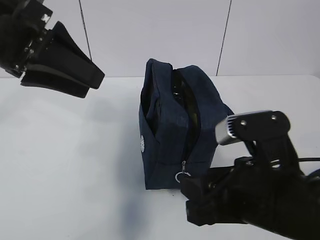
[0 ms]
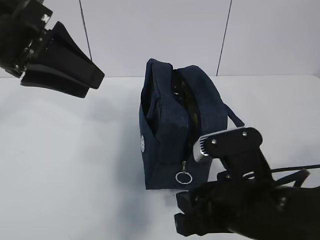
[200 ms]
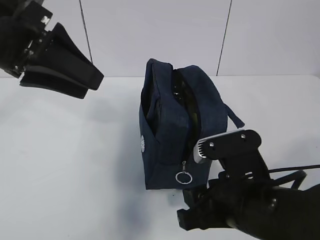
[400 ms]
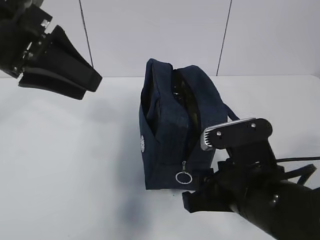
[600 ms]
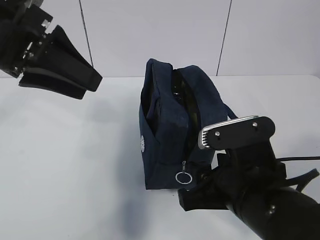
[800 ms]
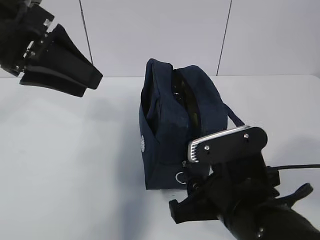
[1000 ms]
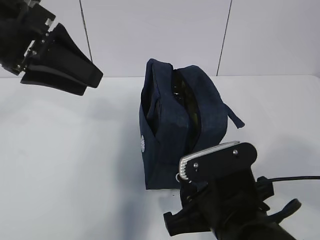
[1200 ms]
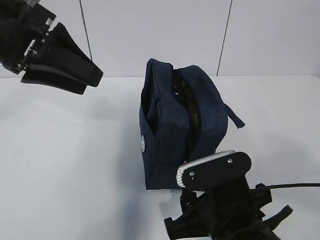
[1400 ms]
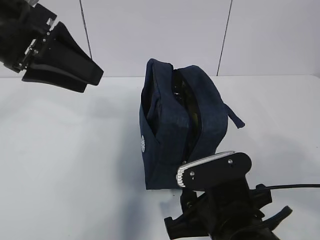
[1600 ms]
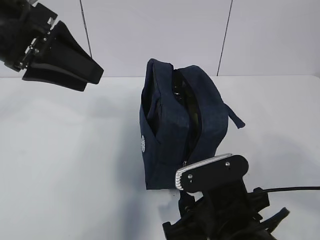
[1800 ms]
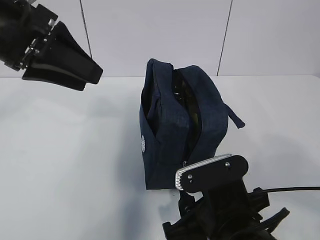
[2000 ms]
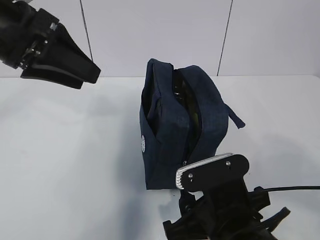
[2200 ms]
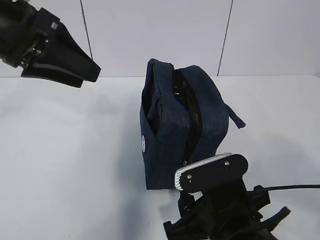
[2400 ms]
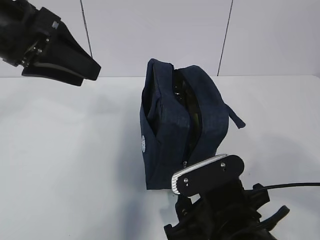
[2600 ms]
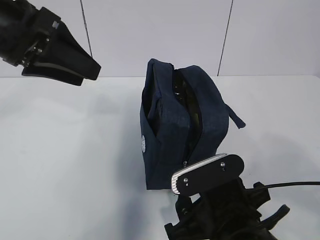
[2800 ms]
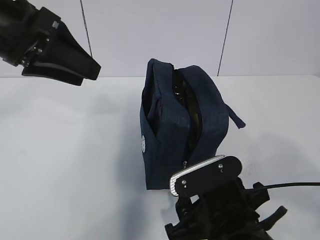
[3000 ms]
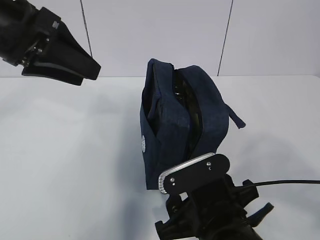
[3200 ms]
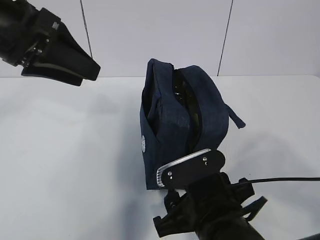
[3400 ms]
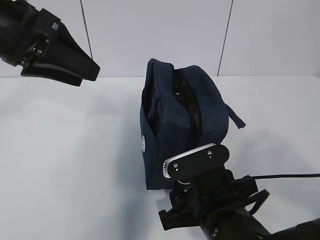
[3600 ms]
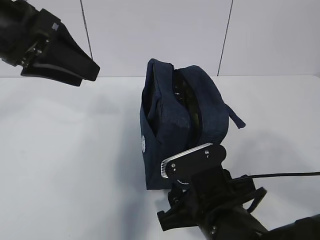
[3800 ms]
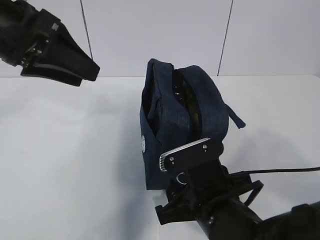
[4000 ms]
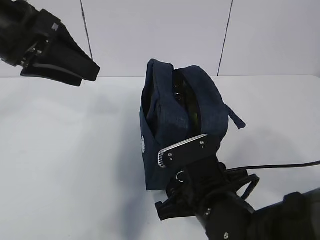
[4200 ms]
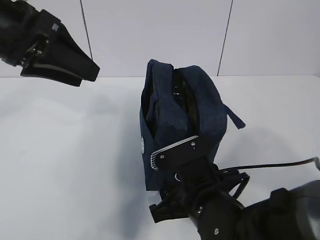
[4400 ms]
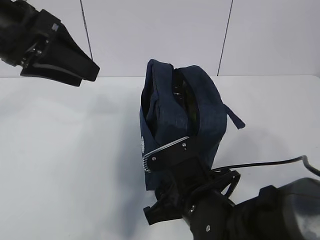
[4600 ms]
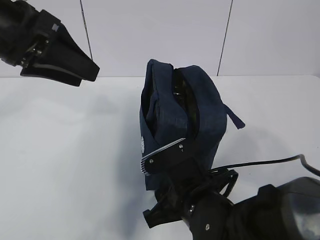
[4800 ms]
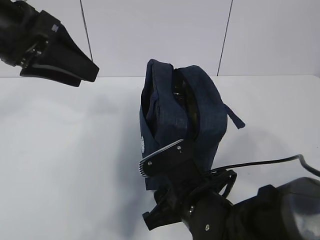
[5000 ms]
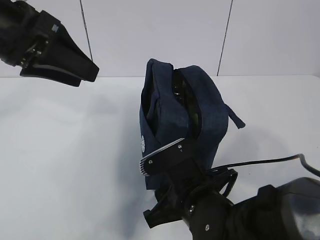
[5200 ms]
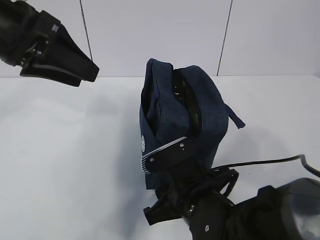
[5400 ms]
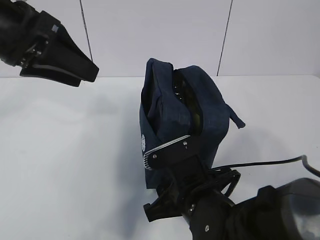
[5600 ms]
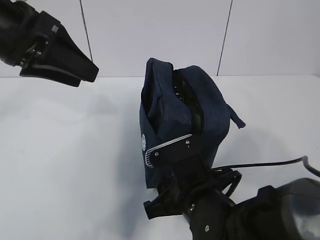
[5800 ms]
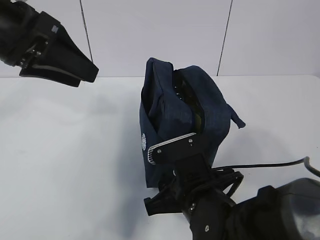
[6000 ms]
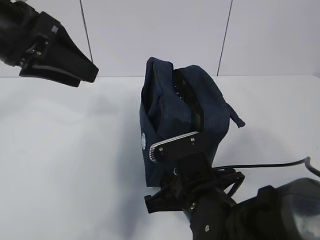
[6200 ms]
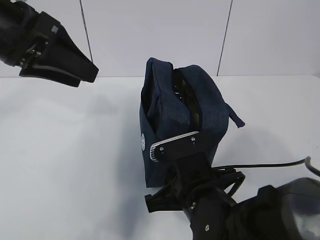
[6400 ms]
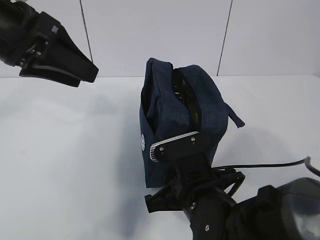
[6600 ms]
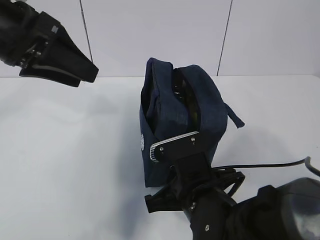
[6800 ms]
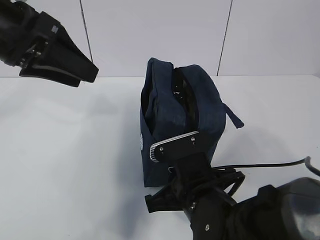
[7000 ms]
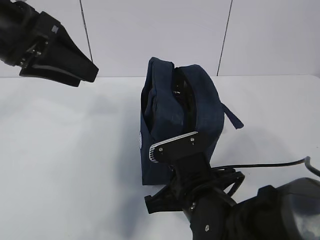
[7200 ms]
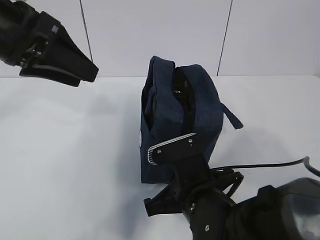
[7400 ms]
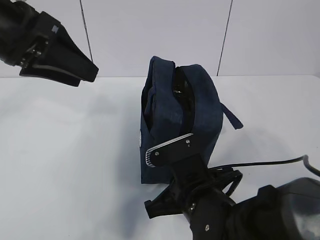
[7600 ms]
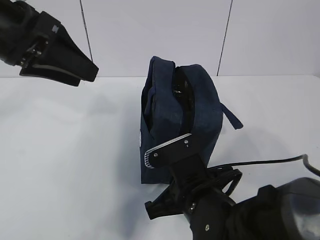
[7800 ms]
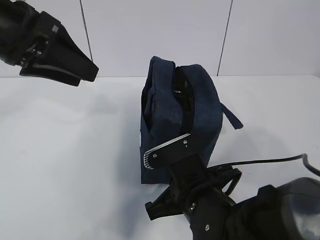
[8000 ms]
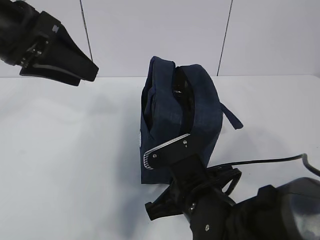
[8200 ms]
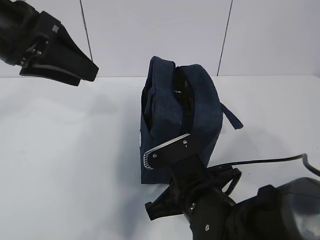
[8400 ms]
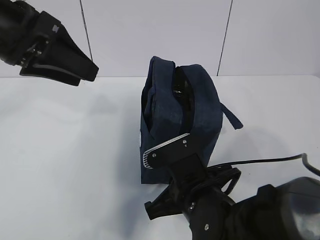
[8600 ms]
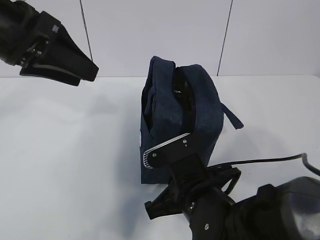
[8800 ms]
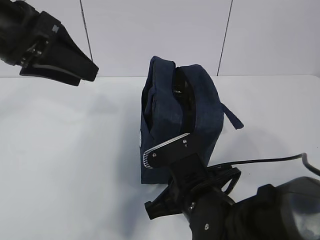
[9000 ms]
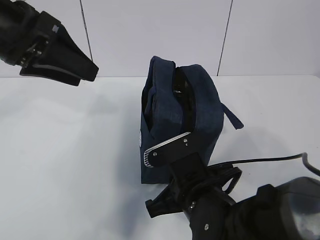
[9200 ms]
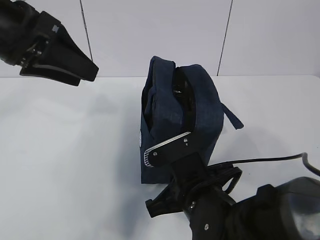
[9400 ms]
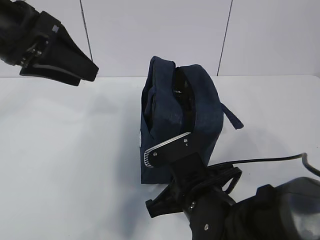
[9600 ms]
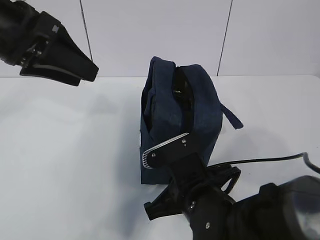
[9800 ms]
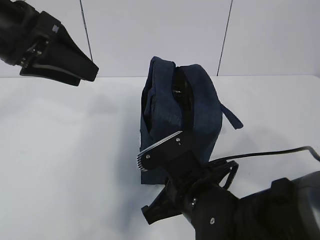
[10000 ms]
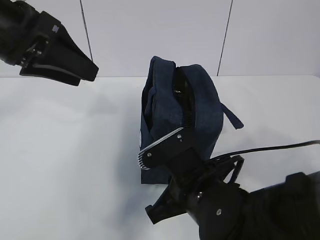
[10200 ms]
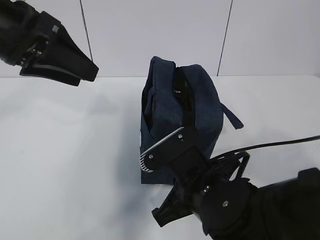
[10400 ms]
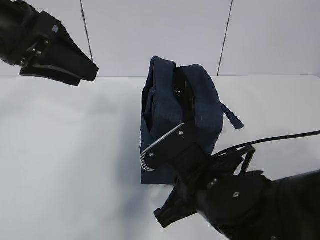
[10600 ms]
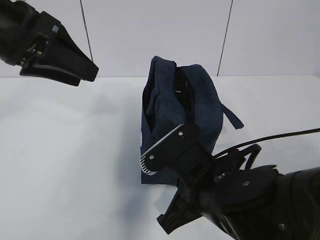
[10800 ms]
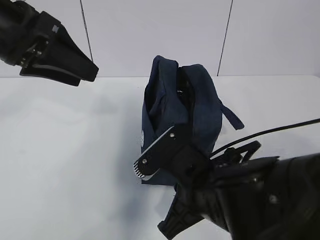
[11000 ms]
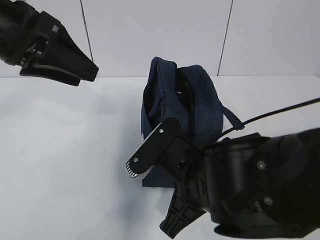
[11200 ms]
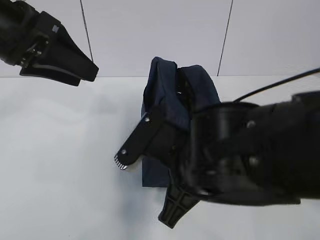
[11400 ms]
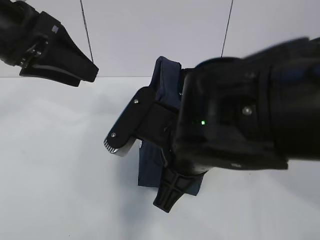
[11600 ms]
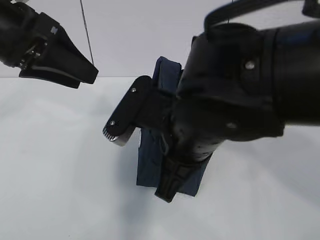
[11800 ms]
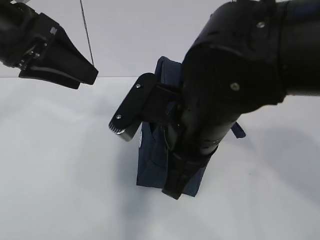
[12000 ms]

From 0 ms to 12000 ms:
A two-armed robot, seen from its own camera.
From 0 ms to 1600 ms: The right gripper travels downward by roughly 5 cm.
From 1600 ms to 3000 ms: The grippers move only a little.
From 3000 ms to 4400 ms: The right gripper shifts by some 5 cm.
From 4400 ms to 6000 ms: The grippers stay close to where they were, moving slightly.
From 6000 ms to 7600 ms: The right gripper closes.
From 7600 ms to 9000 ms: The two grippers keep their place.
From 9000 ms to 10400 ms: The grippers stay close to where they were, moving slightly.
From 10400 ms to 12000 ms: The right gripper moves upward, about 10 cm.

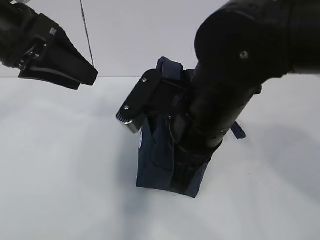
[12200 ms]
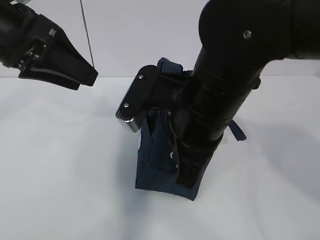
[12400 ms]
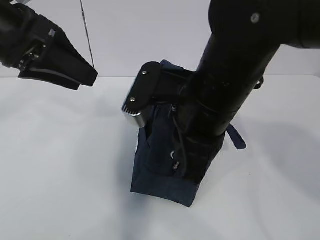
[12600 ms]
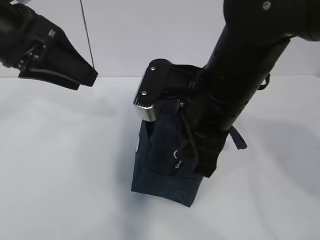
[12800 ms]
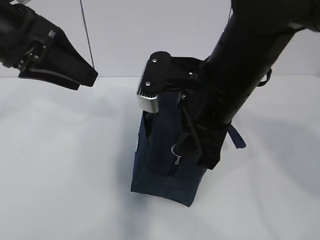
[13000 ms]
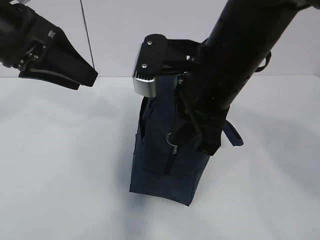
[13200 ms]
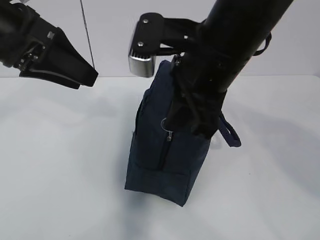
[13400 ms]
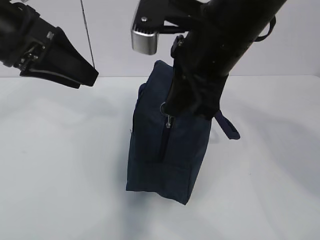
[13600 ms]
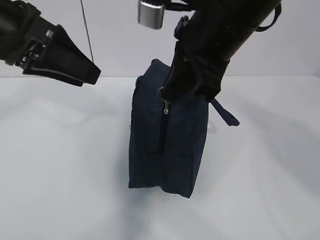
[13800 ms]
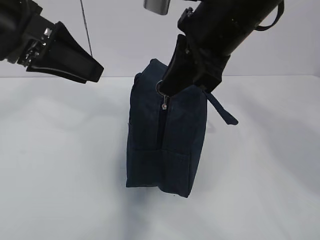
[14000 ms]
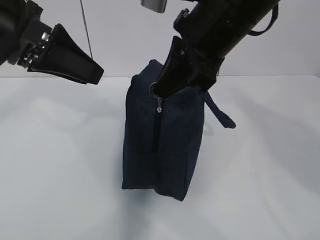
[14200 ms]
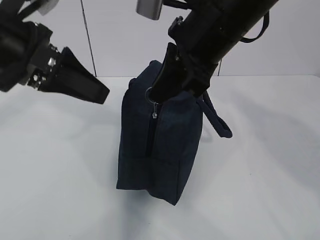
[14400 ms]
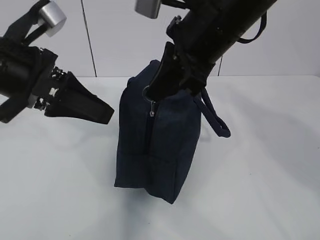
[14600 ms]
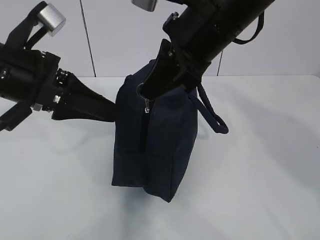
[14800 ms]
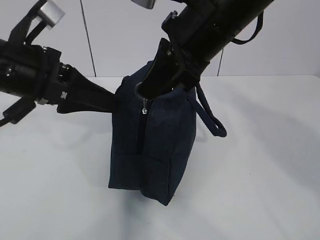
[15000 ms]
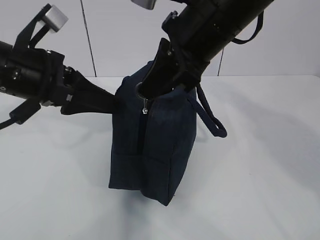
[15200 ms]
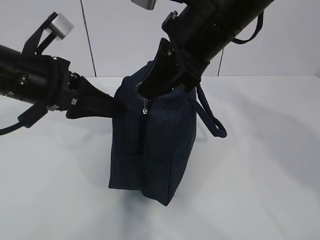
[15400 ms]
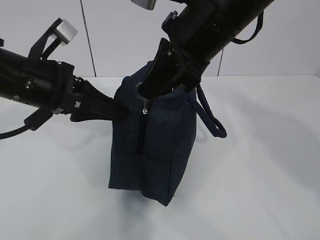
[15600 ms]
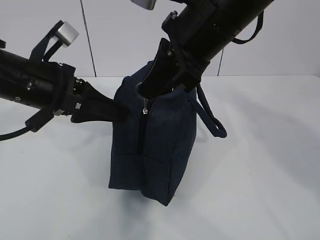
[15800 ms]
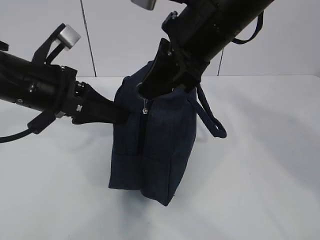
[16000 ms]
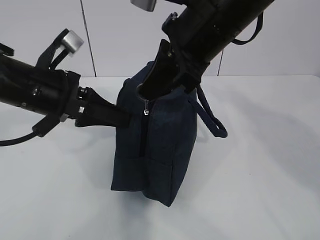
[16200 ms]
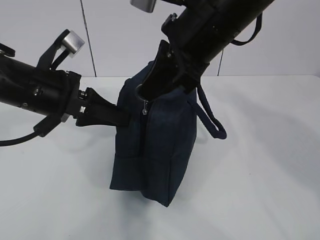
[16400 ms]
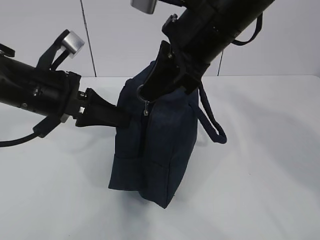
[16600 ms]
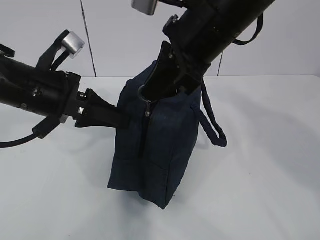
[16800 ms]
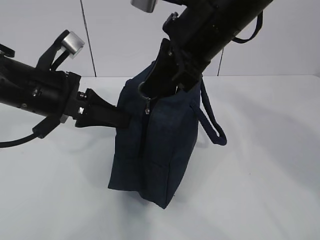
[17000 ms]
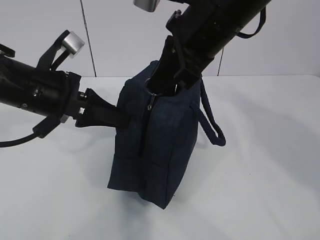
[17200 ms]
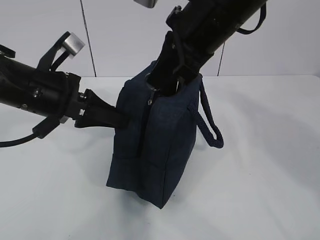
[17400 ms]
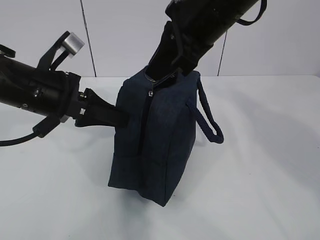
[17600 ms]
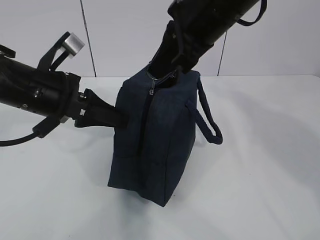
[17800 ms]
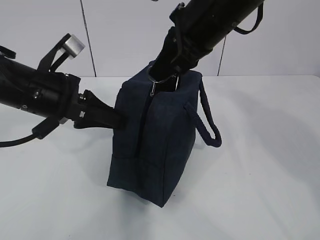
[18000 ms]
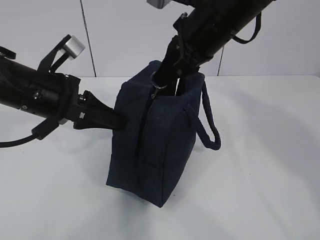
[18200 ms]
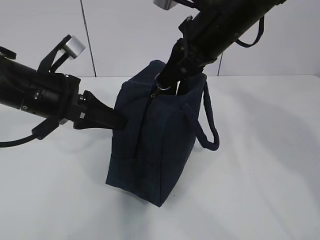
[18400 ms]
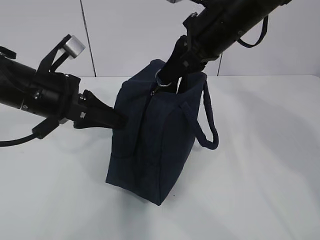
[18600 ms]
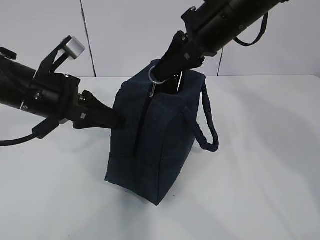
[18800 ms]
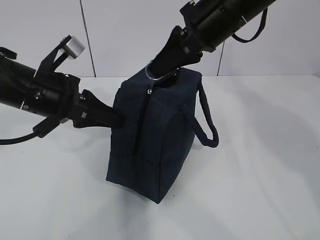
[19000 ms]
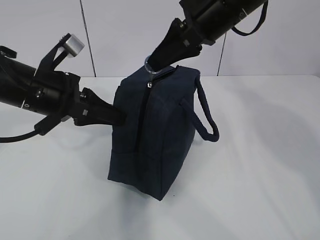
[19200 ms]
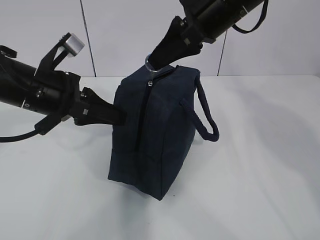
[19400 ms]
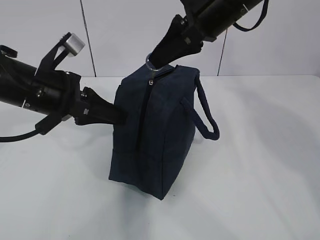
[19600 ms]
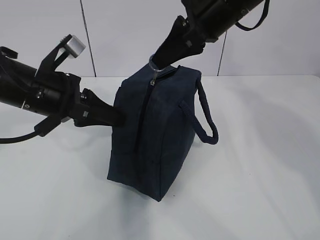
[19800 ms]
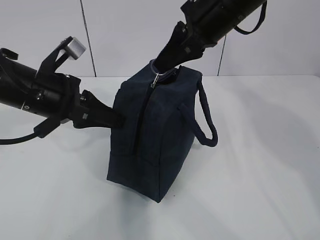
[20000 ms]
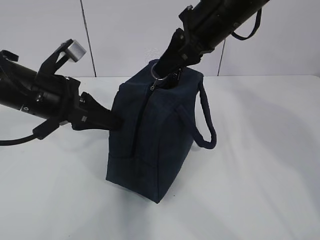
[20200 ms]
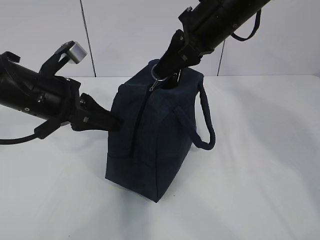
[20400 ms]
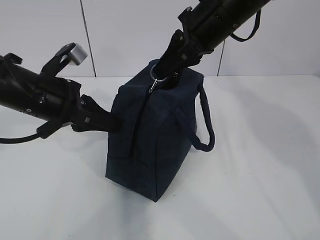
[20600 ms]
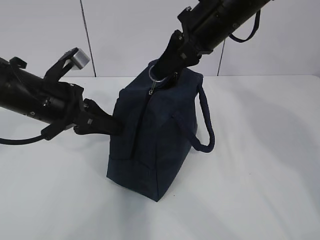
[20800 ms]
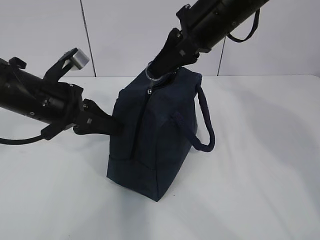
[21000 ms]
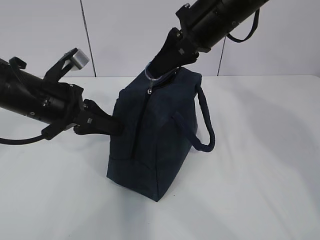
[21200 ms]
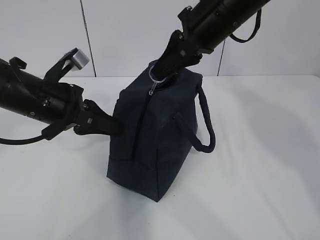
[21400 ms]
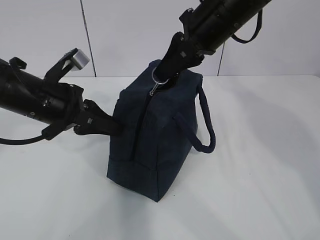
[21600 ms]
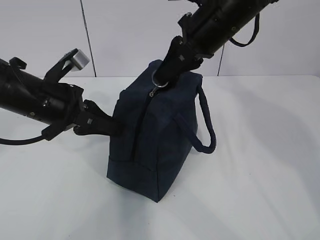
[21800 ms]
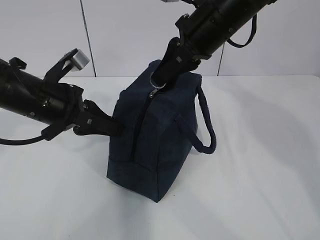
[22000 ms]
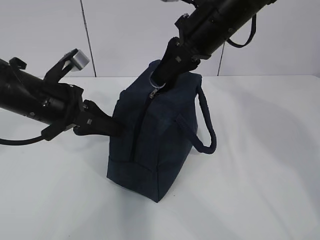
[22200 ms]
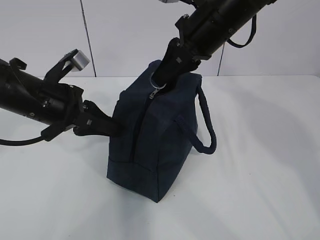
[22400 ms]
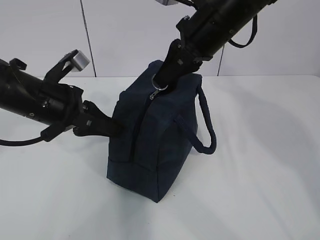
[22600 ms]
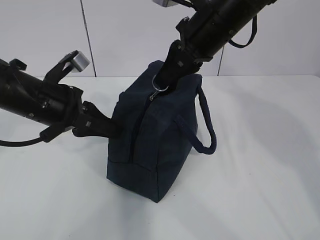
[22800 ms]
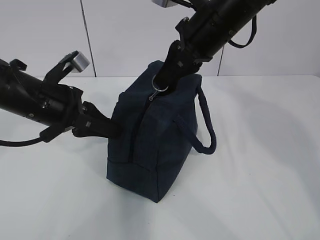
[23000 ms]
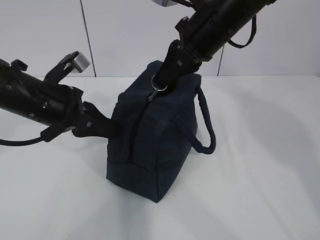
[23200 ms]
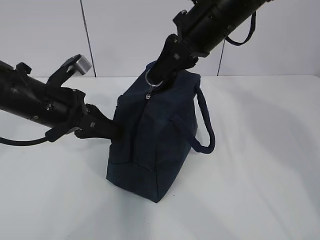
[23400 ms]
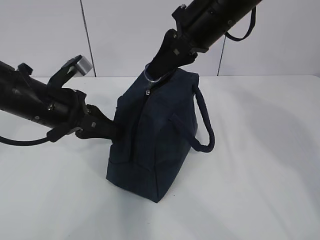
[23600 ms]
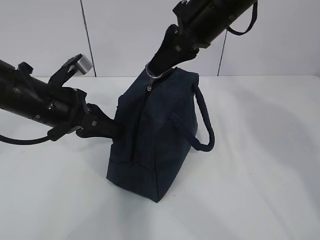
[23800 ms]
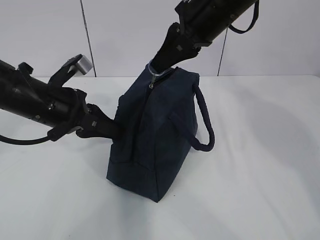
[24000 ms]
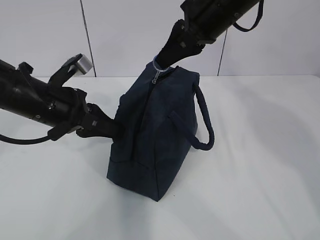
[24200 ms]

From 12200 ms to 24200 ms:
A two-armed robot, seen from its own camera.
Step, from 12200 ms to 16400 ms: Grab the lunch bag with your left hand.
Step, from 16800 ms to 20200 ms: Pull the zipper with your right hand.
Step, from 20400 ms to 21000 ms: Grab the lunch bag with your left hand.
From 12200 ms to 13800 ms: The right gripper shifts roughly 10 cm upward.
From 13800 ms to 15200 ms: The left gripper heads downward, covering some 5 cm.
From 15200 ms to 16600 ms: The left gripper closes up.
From 16600 ms to 18200 ms: The right gripper moves approximately 5 cm.
From 18200 ms to 24200 ms: The grippers move only a little.
